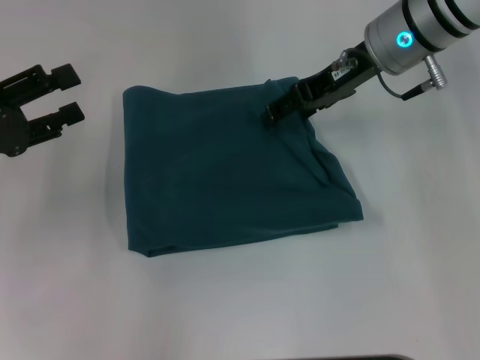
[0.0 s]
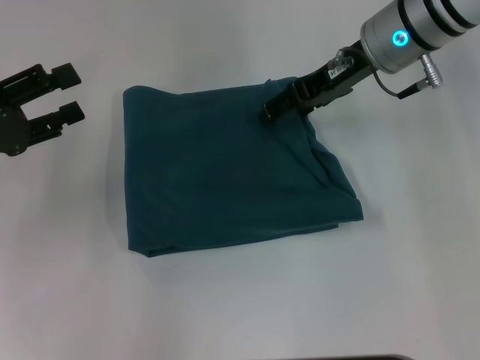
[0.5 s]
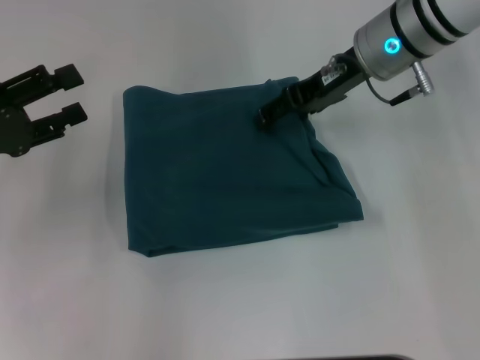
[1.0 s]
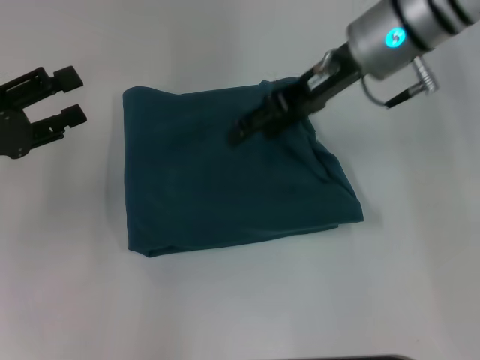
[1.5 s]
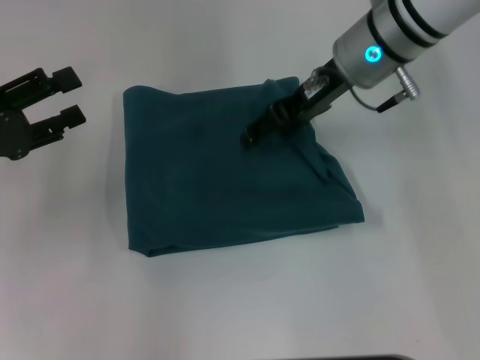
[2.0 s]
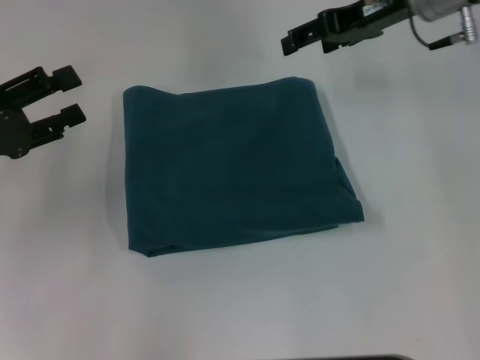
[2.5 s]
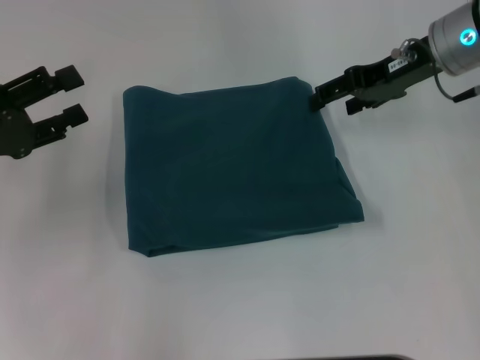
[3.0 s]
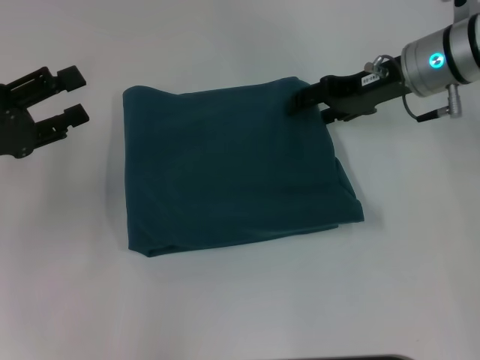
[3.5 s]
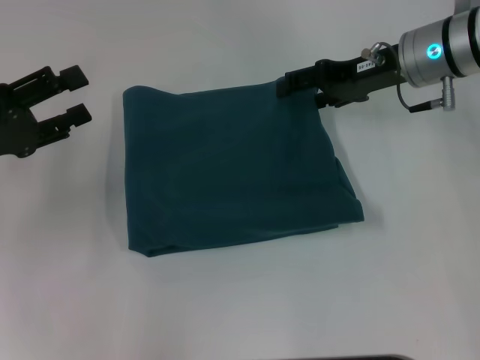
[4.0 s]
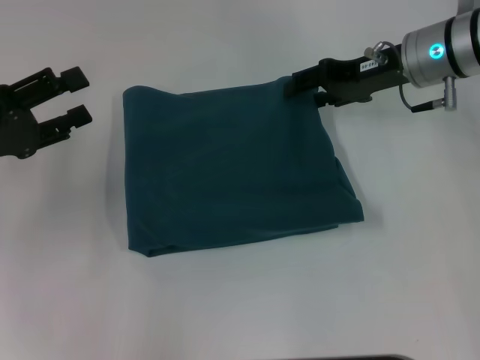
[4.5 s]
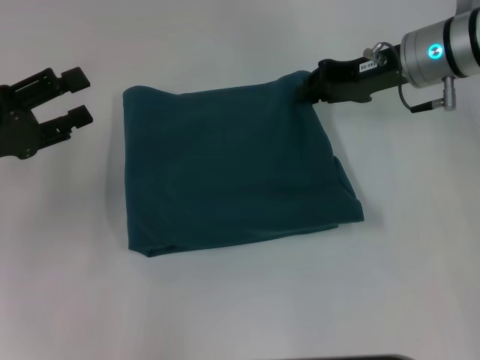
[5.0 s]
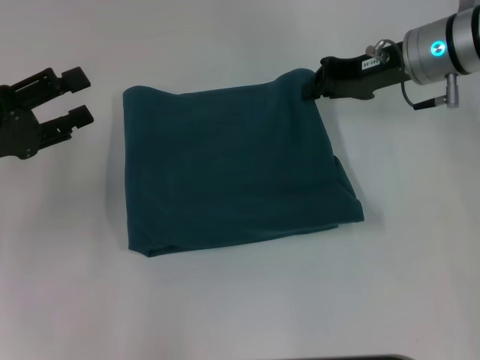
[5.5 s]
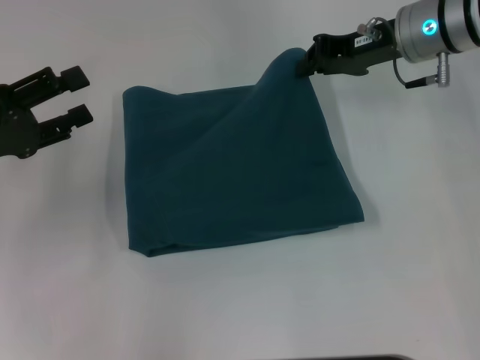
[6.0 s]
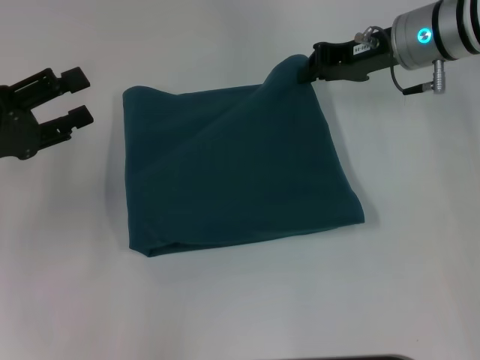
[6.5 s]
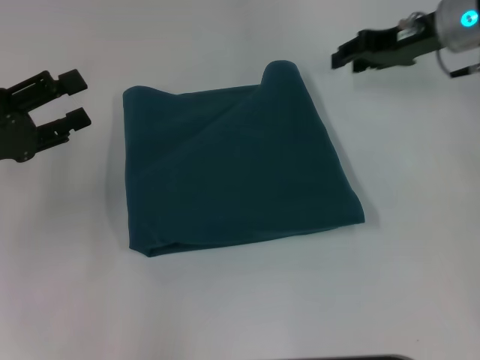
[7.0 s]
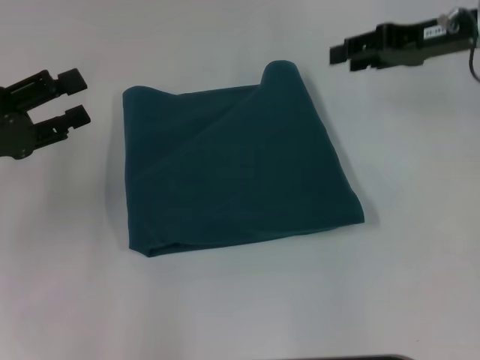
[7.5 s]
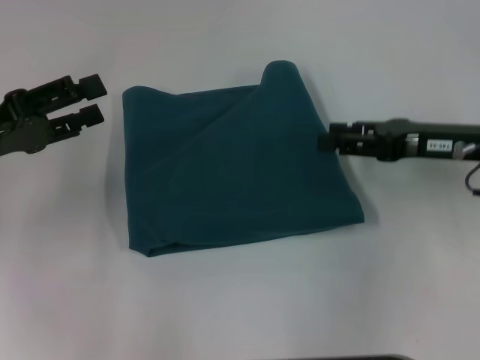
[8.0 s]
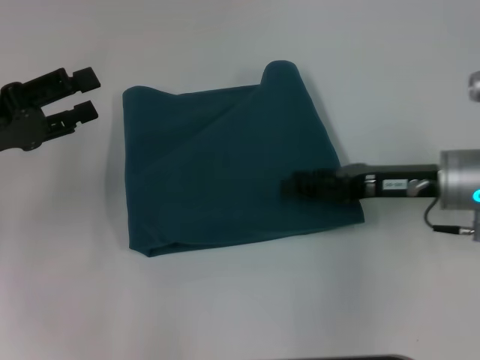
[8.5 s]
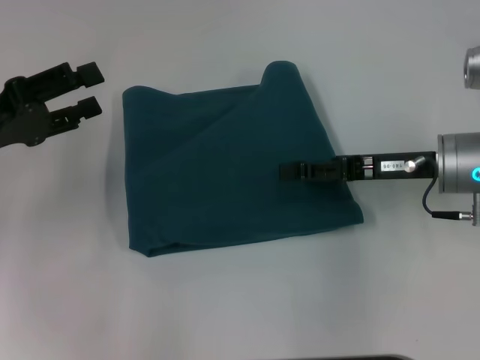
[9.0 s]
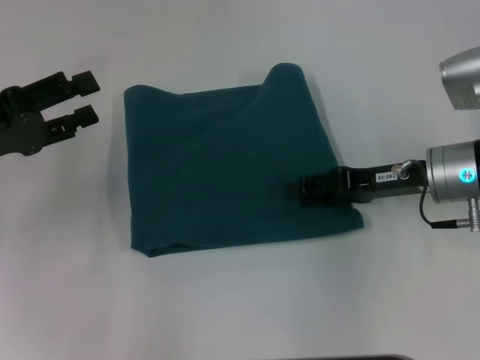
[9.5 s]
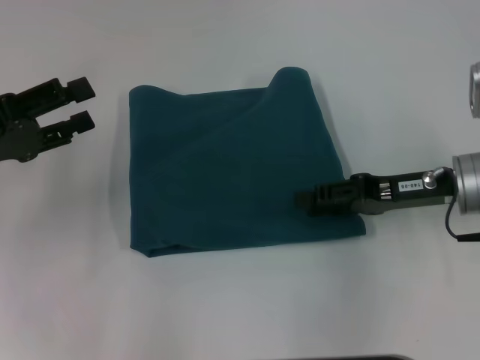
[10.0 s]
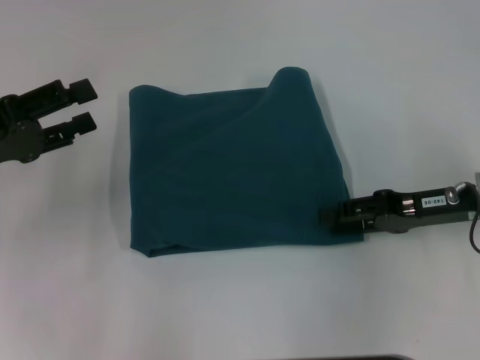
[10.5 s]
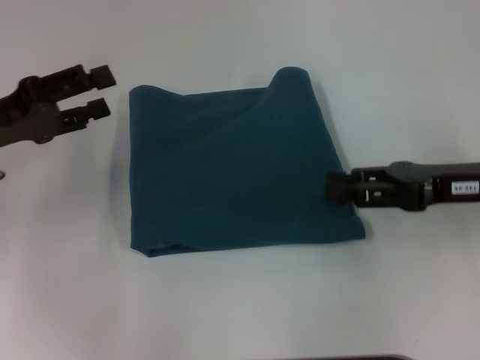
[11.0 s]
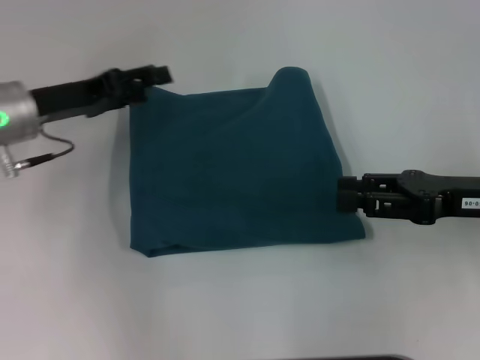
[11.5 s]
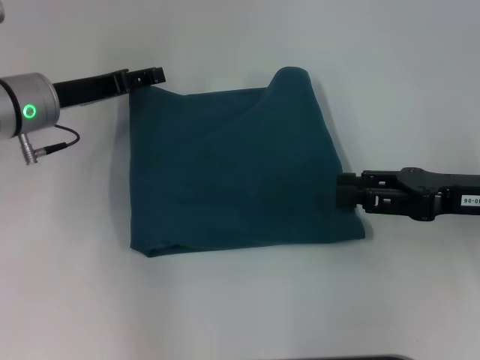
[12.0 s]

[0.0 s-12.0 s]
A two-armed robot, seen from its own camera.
0.0 to 2.0 s: The grippers move only a little.
2.0 to 4.0 s: The right gripper travels to the right by approximately 10 cm.
4.0 to 6.0 s: The right gripper closes up.
6.0 to 8.0 s: The right gripper is displaced backward and to the right by about 15 cm, and opens up.
10.0 to 12.0 s: The left gripper heads forward and to the right, covering some 15 cm, while the right gripper ends up approximately 5 cm from where it was.

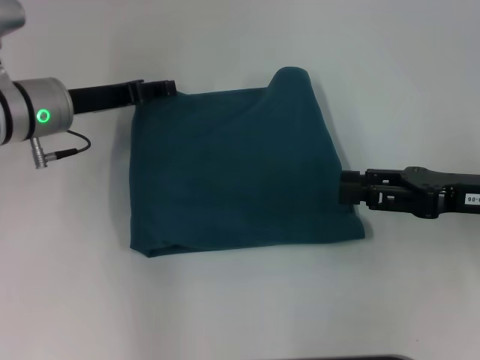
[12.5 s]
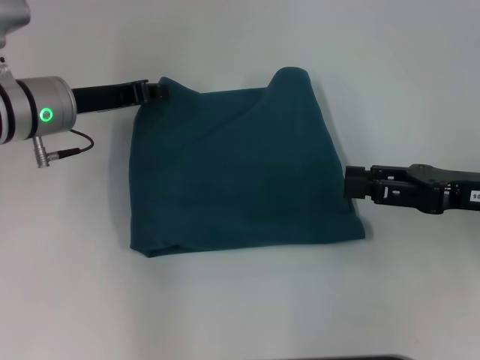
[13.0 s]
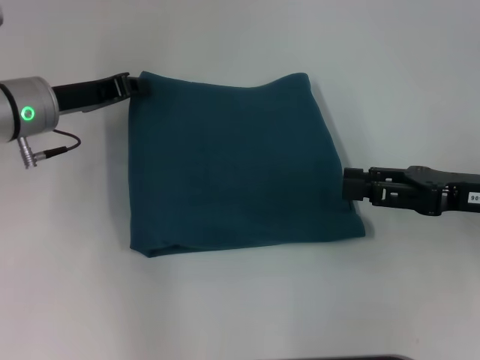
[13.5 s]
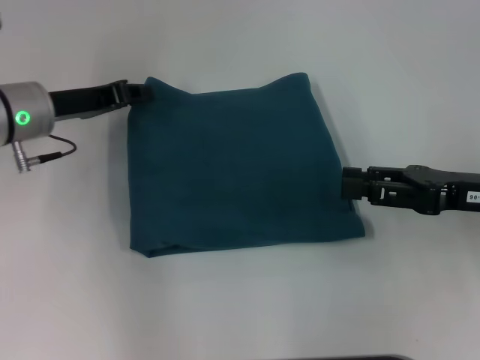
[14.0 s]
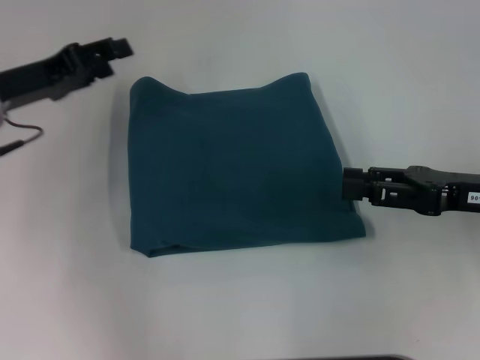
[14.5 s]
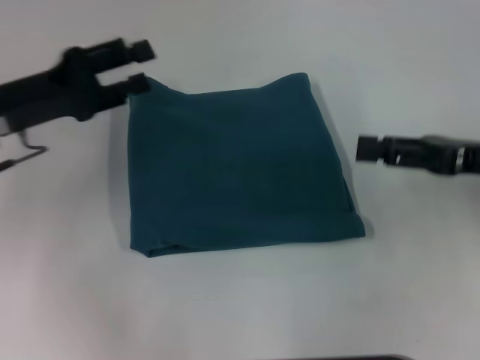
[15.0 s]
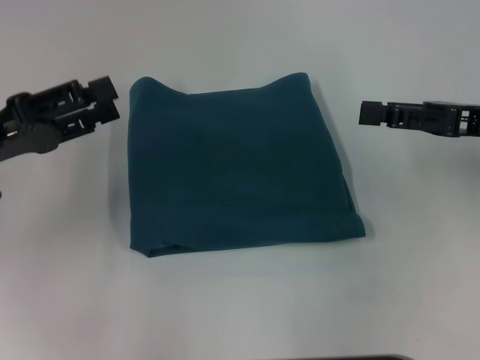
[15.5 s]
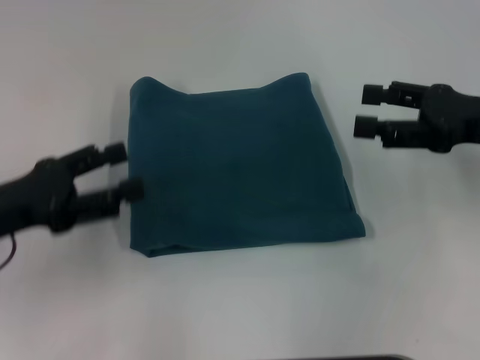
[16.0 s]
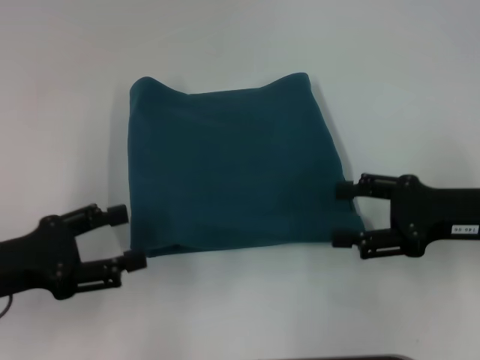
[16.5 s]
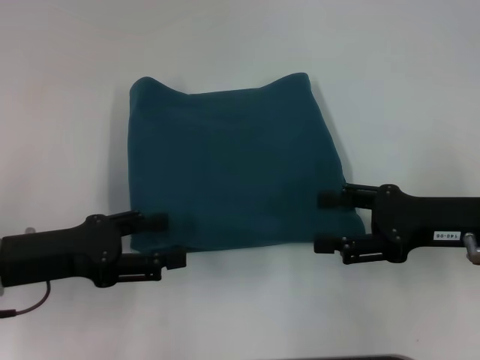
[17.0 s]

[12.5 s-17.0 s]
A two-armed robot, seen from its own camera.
12.5 to 14.5 s: The left gripper ends up approximately 5 cm from where it was, and closes, then reopens.
14.5 to 17.0 s: The left gripper moves backward, some 10 cm, and opens up.

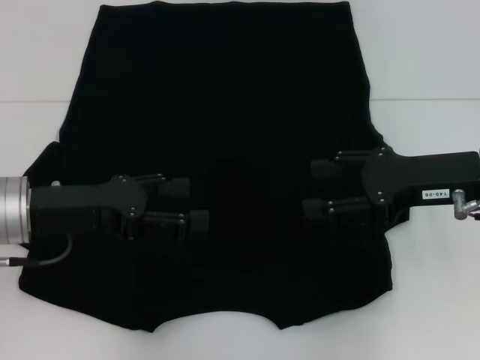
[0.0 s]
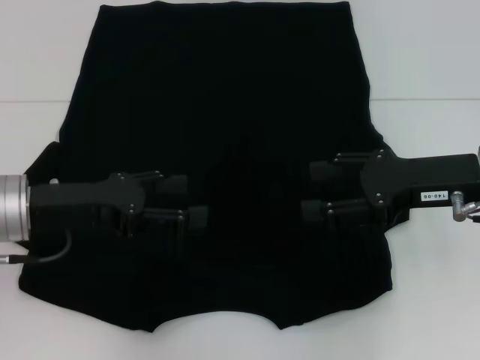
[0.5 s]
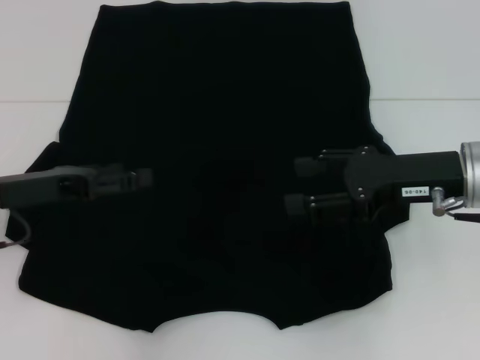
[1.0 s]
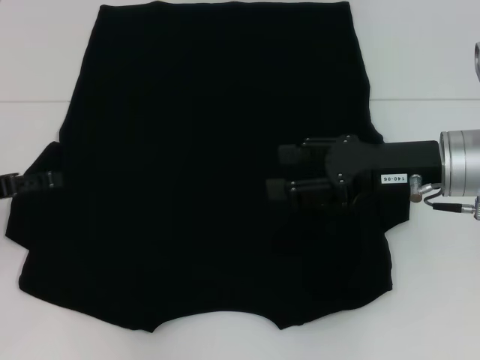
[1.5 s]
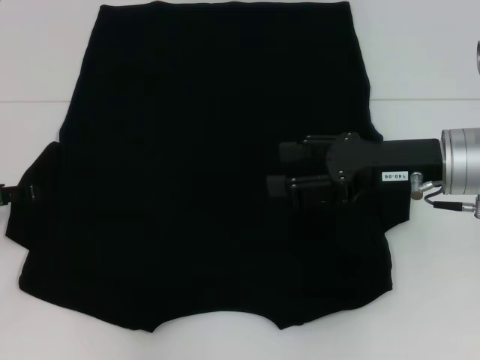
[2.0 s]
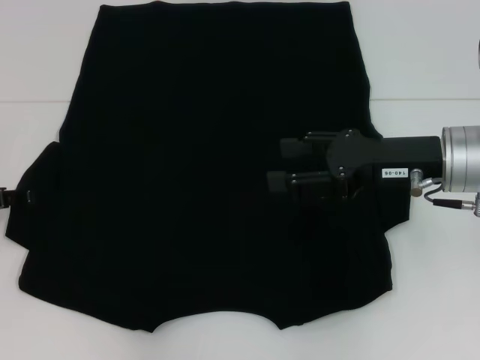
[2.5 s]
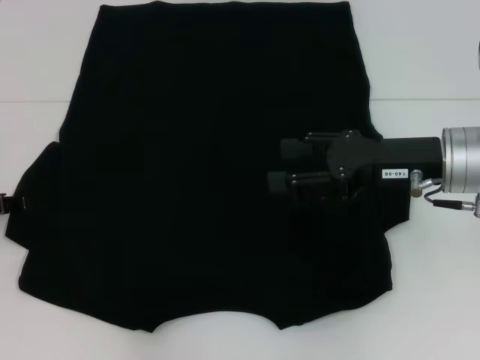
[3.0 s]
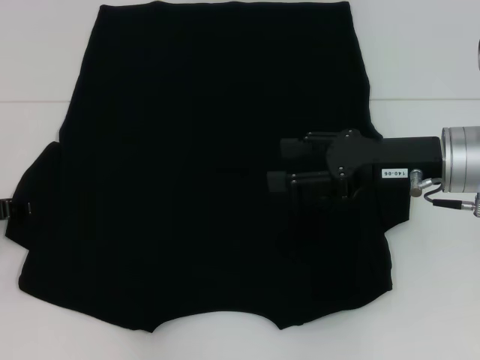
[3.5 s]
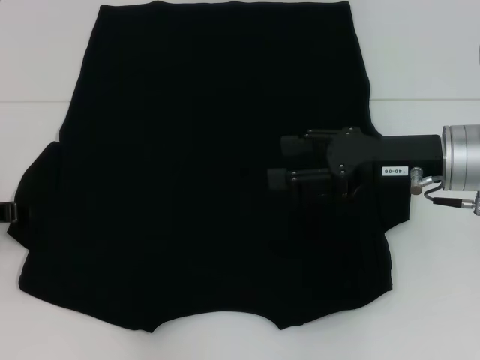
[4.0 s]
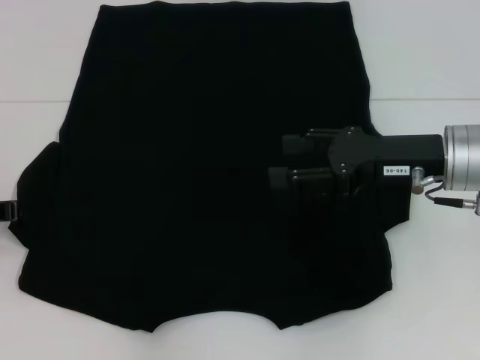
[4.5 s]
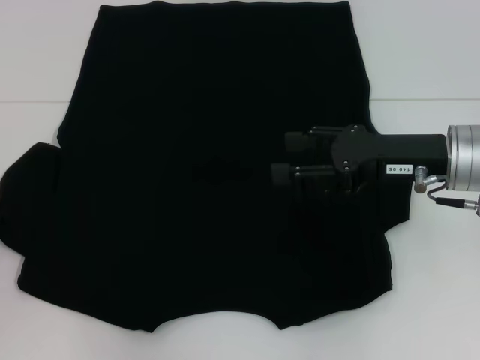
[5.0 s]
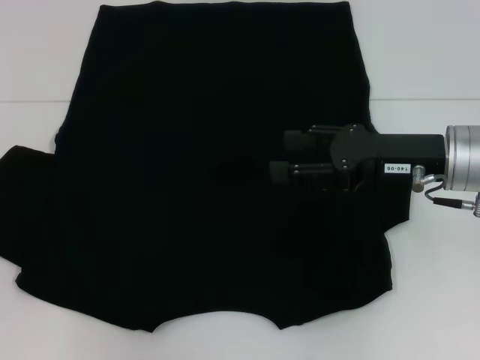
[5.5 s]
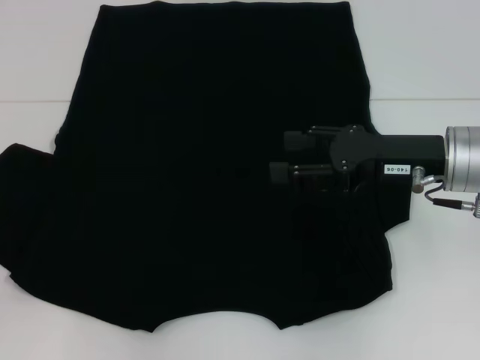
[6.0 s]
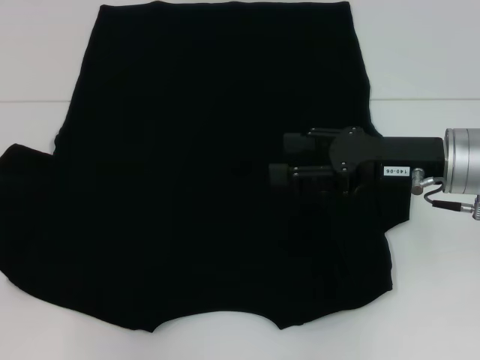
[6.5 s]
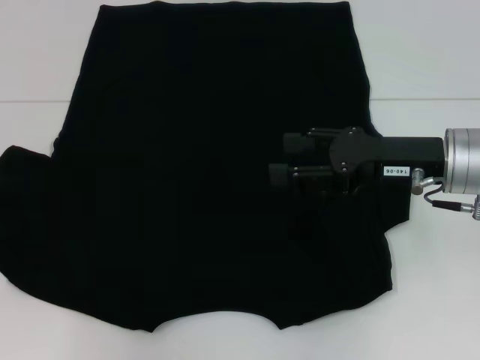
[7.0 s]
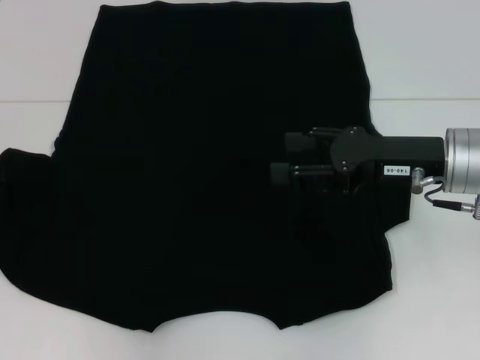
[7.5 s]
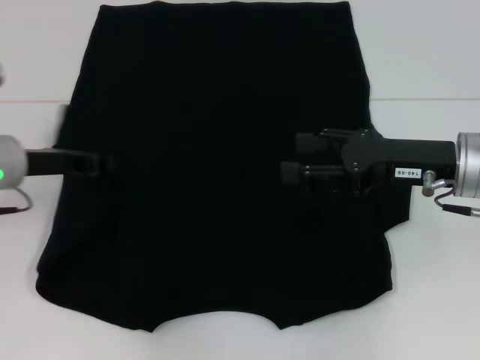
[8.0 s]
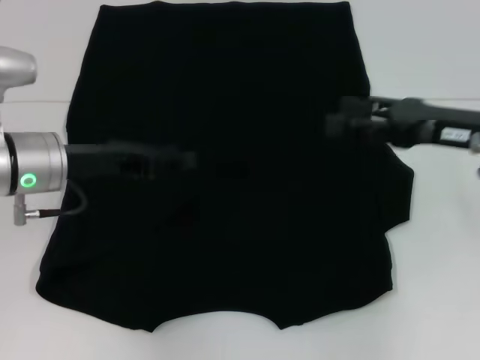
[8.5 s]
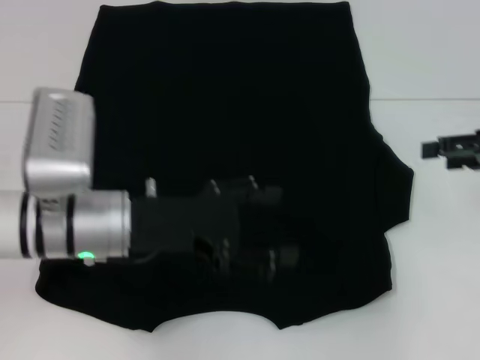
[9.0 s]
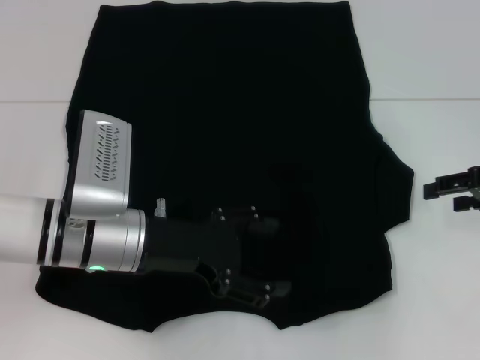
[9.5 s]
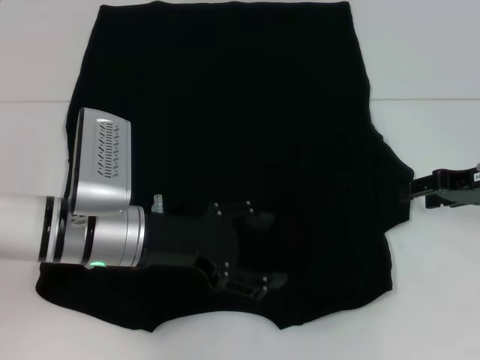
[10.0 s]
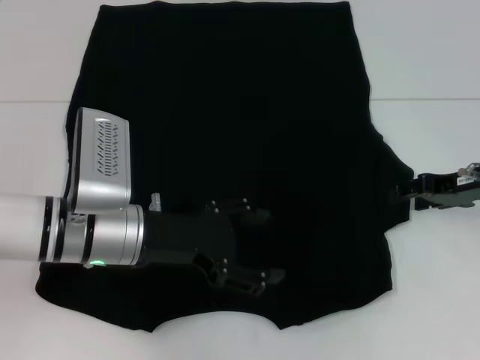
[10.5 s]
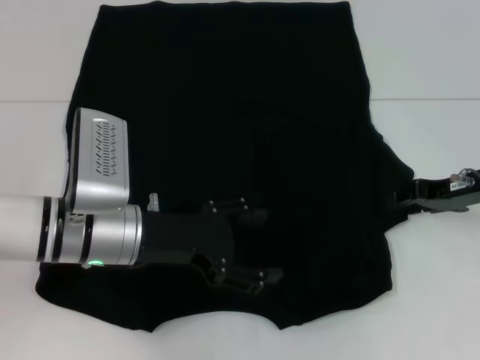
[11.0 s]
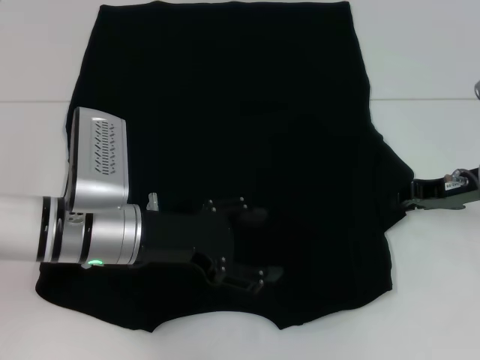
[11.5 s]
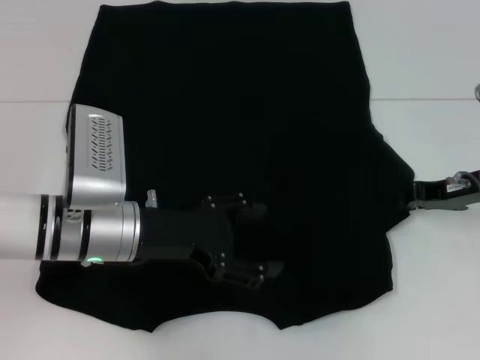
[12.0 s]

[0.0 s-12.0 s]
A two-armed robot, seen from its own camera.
Step, 0.0 to 8.0 s: Fold the bottom left sleeve with your left hand.
0.0 to 2.0 s: The left gripper shifts roughly 10 cm to the left.
4.0 to 6.0 s: The left gripper closes.
6.0 to 8.0 s: The left gripper goes roughly 10 cm to the right.
8.0 to 10.0 s: The right gripper moves to the right, some 10 cm. Meanwhile the left gripper shifts about 10 cm to the right and backward, and opens up.
10.0 to 12.0 s: The right gripper closes.
